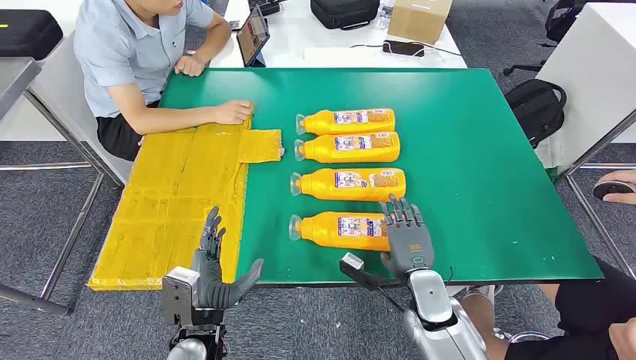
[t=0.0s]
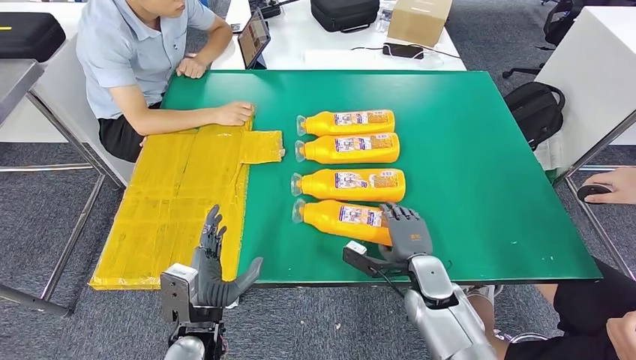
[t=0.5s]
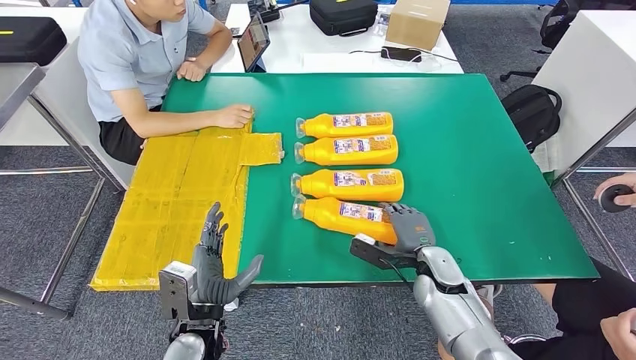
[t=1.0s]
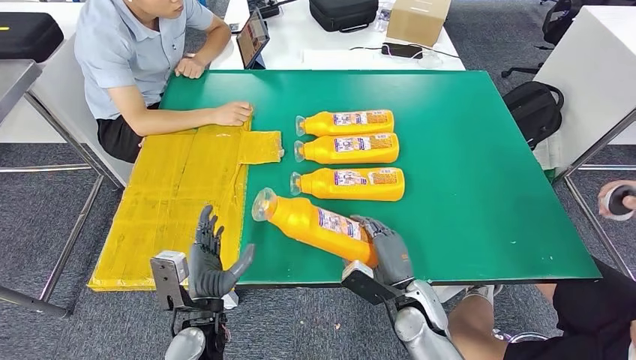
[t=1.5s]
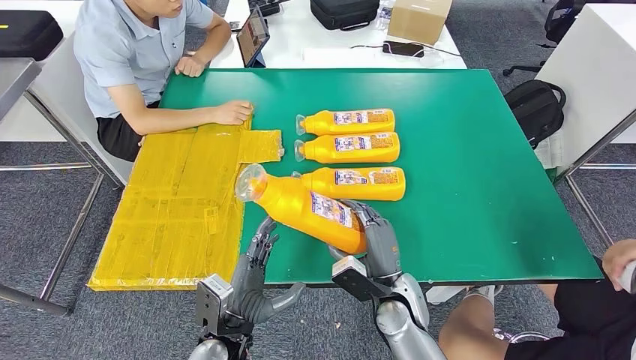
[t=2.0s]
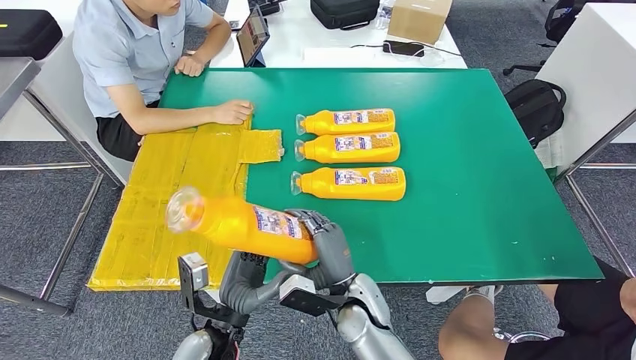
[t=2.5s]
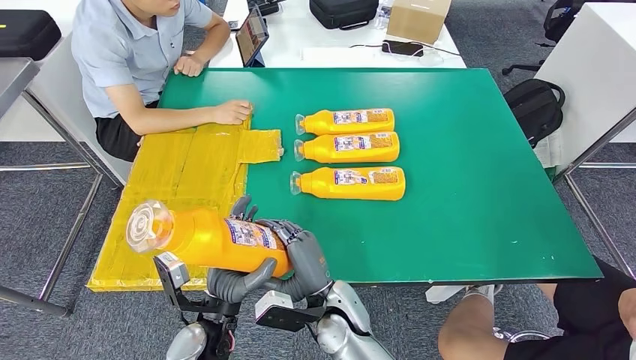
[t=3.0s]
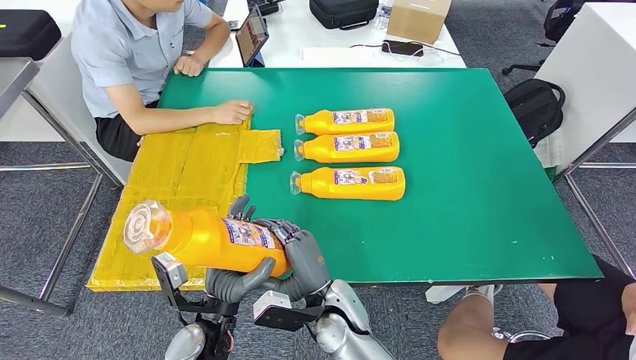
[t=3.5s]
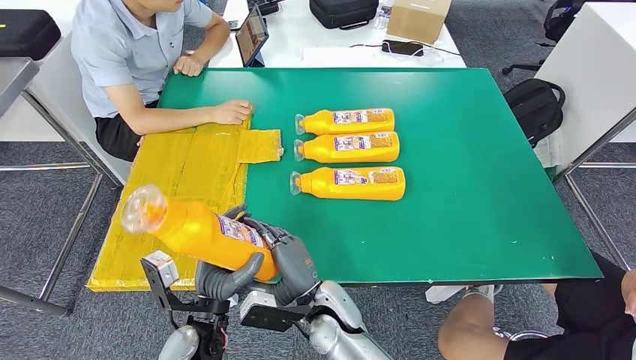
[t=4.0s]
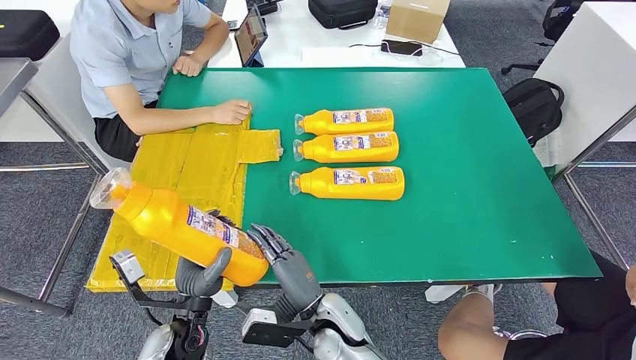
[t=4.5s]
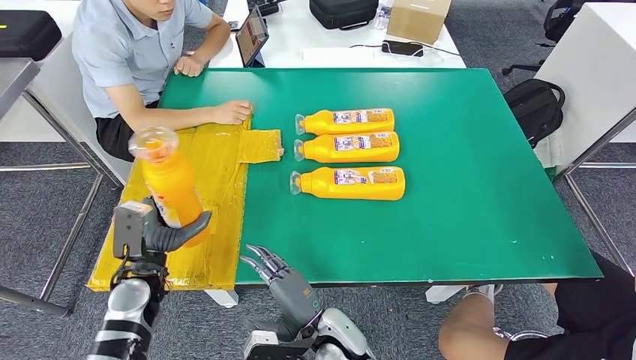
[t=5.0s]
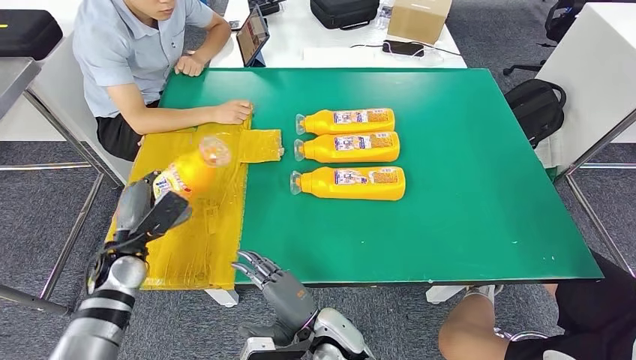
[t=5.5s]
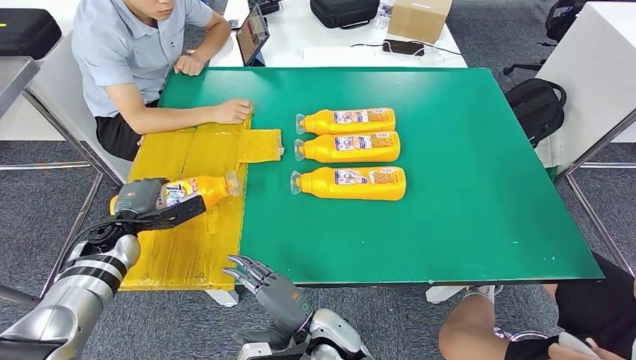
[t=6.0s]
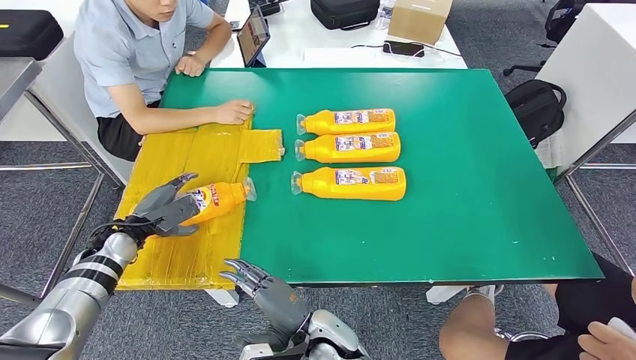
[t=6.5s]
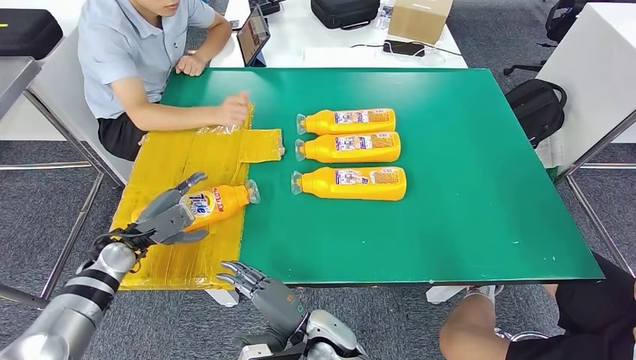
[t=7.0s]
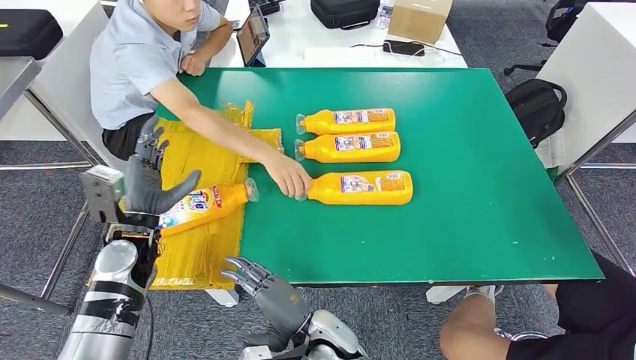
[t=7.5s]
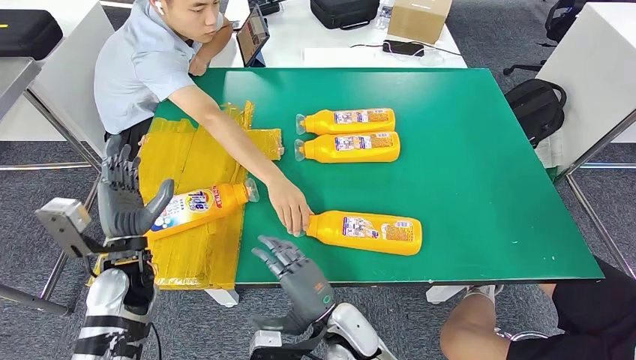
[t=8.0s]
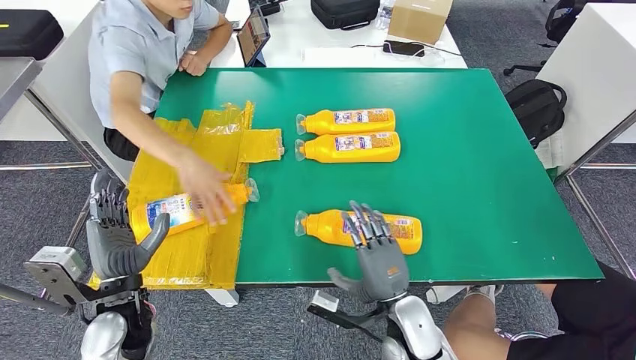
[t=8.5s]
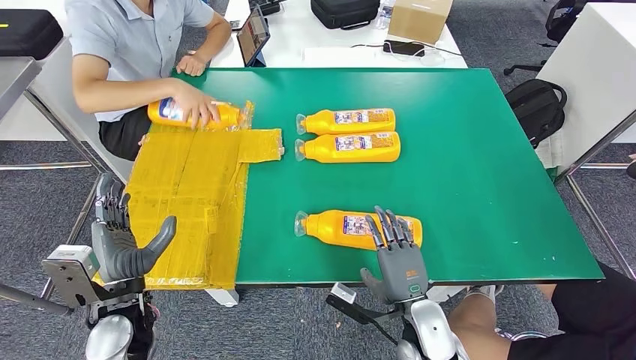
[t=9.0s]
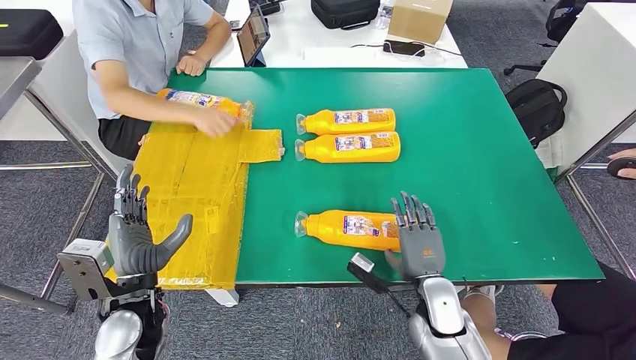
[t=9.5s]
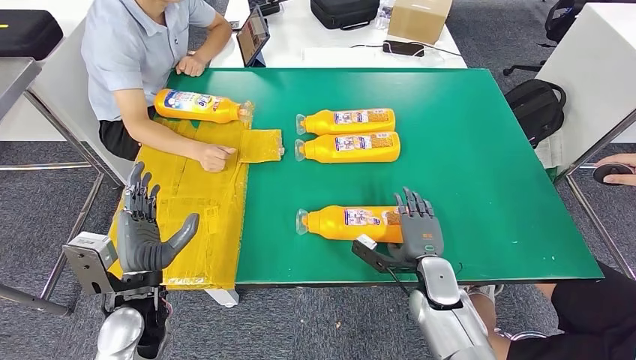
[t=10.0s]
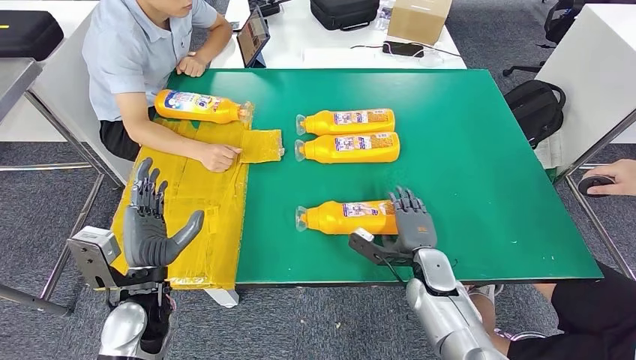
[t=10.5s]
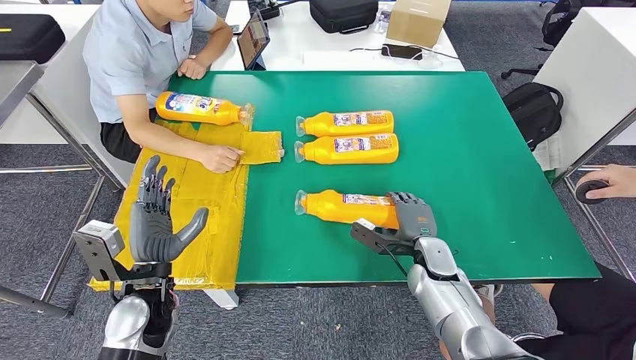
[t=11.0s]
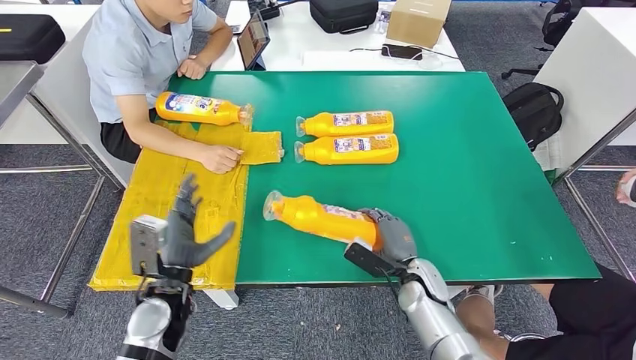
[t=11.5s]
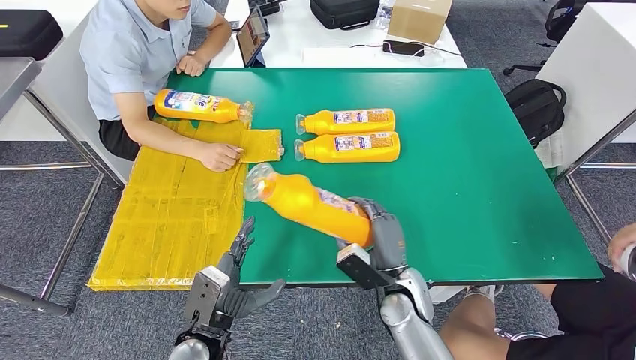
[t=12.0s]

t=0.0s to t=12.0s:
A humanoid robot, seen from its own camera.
Step, t=0.0s to t=1.5s: Take the bottle from the table.
Step, t=3.0s to t=7.0s: Flip the bottle to face forward.
t=2.0s to t=4.0s: The right hand is displaced to the left by roughly 15 cm.
t=4.0s to t=6.0s: The left hand moves to the left and forward, approximately 25 cm.
t=10.0s to t=12.0s: The left hand is displaced to the right and downward by roughly 10 cm; the right hand moves to the left, roughly 5 cm.

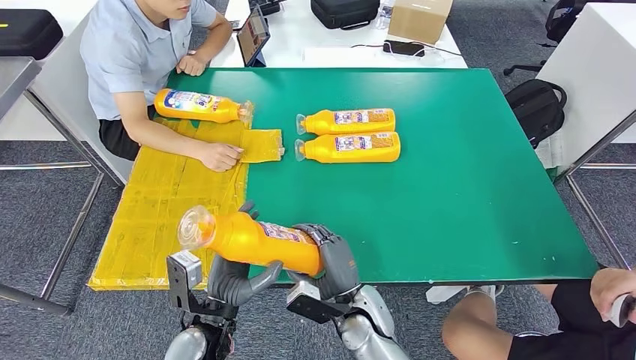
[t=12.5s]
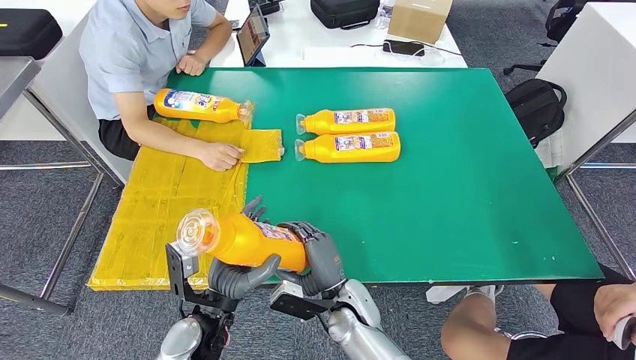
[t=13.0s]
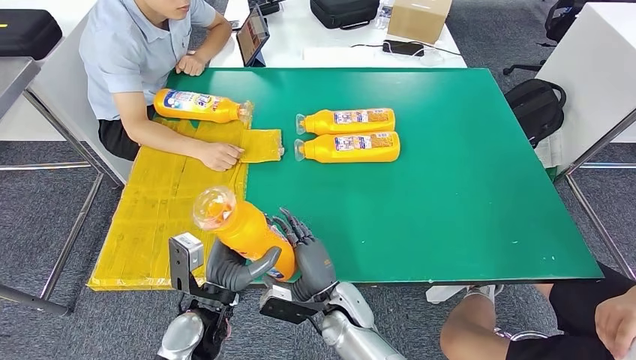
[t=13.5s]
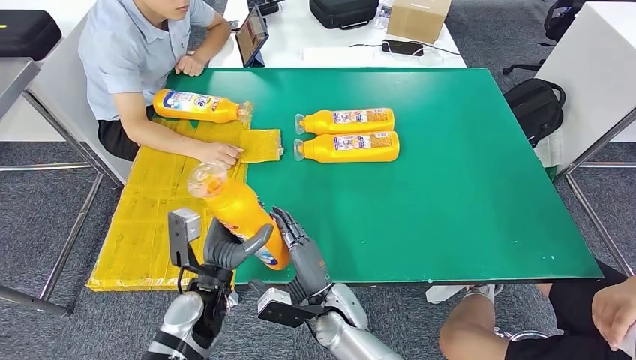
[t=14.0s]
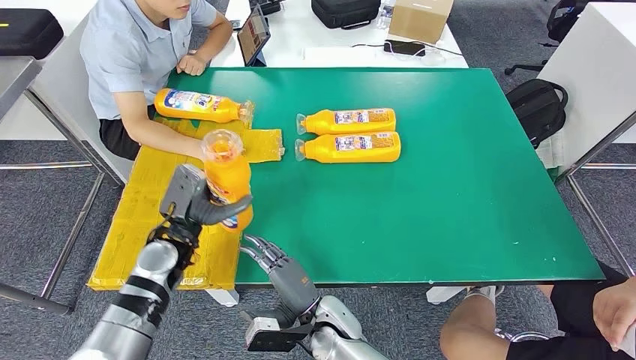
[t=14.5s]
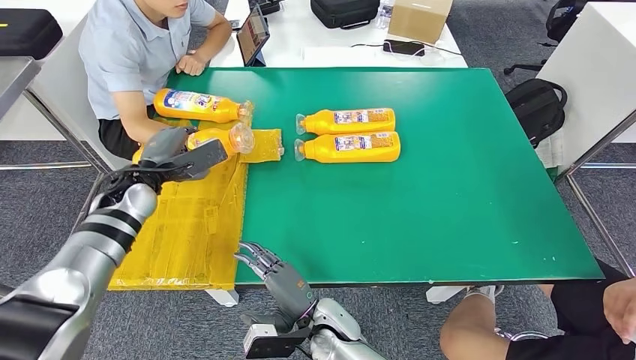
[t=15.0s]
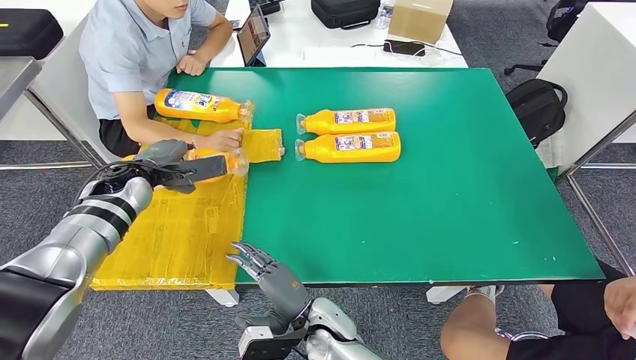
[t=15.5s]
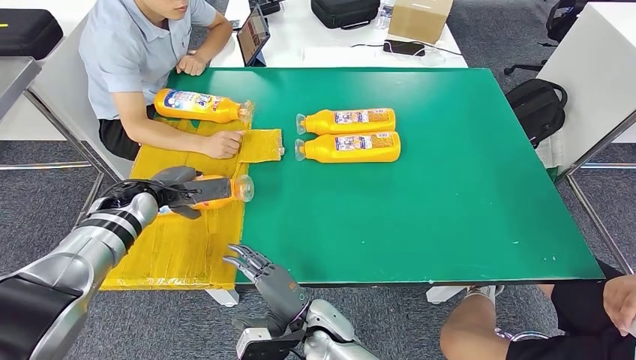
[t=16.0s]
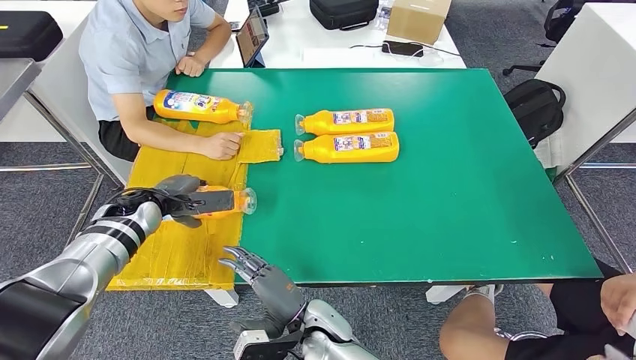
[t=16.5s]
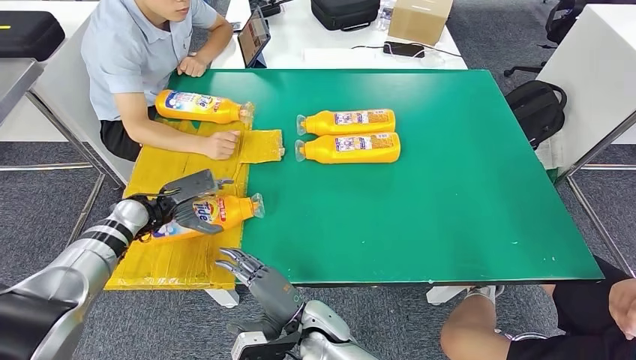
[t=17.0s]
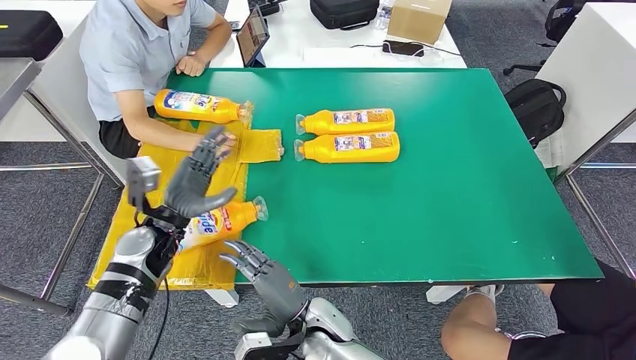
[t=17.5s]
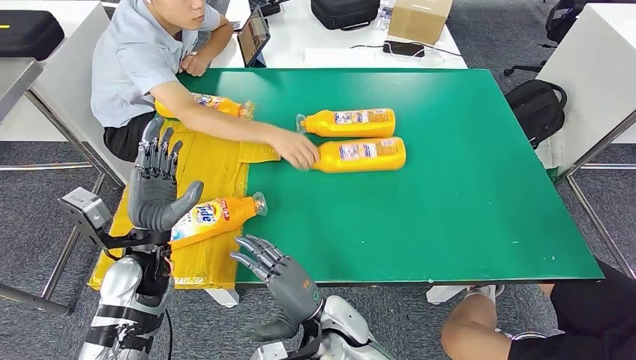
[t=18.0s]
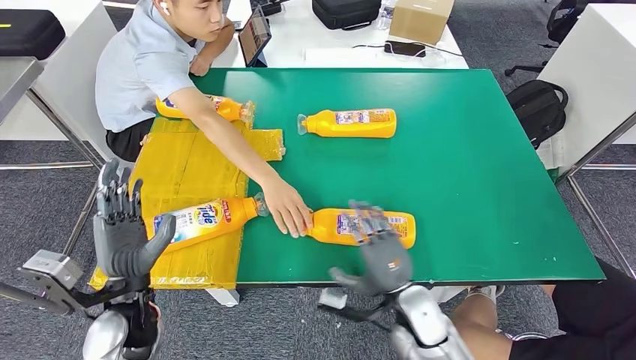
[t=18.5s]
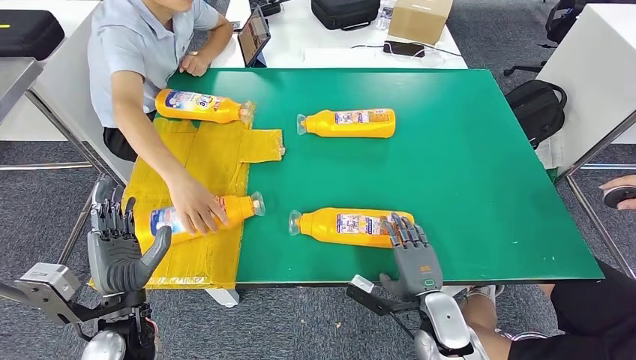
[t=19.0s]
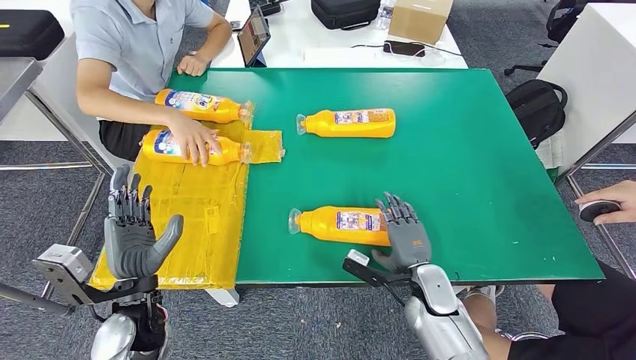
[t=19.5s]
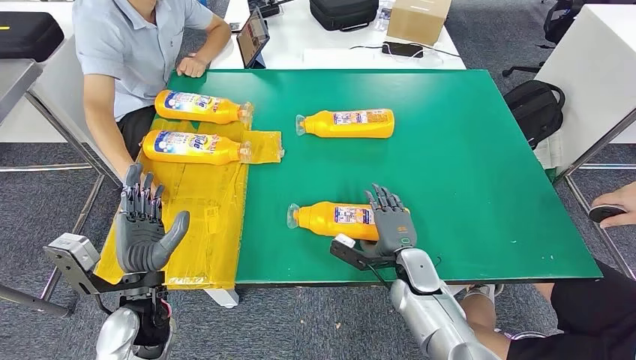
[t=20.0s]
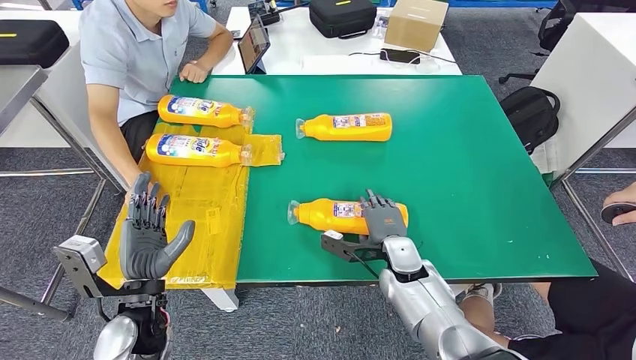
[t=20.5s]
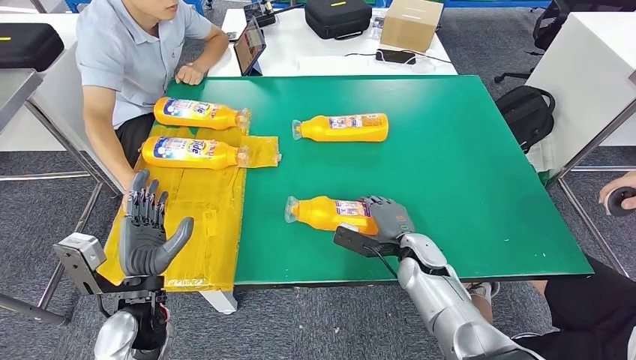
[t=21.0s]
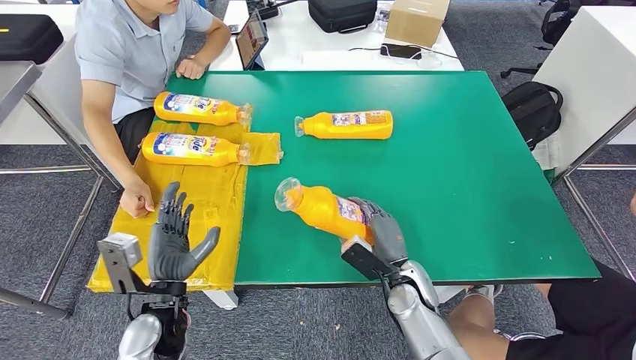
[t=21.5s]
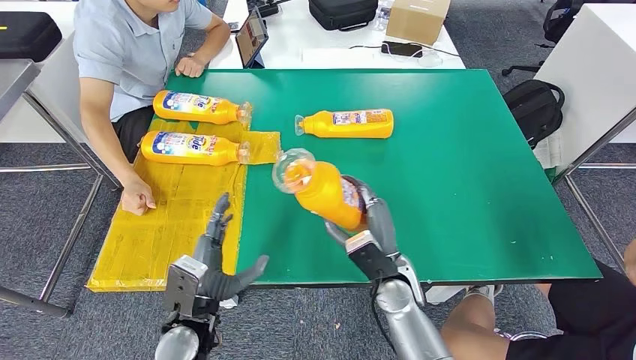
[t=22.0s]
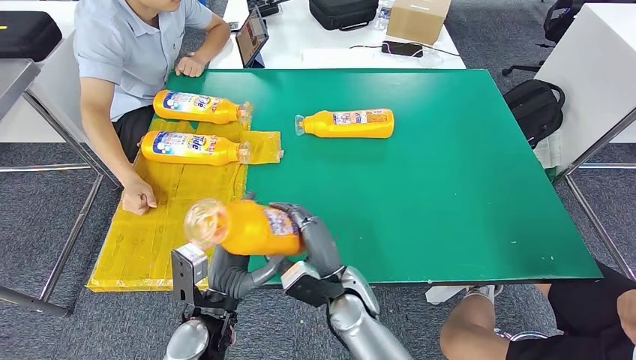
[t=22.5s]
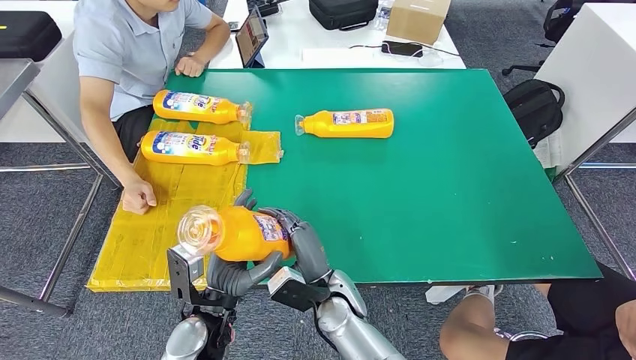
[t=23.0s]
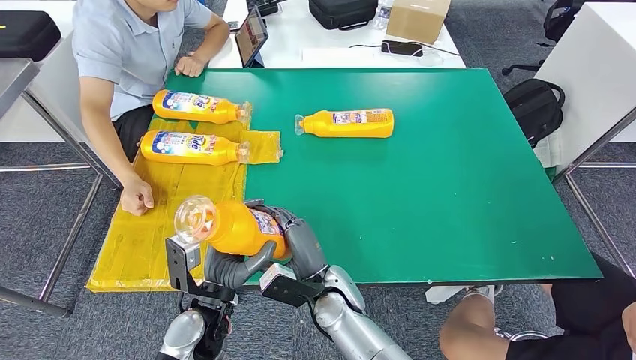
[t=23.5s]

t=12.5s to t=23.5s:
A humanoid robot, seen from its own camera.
Step, t=14.0s to t=17.5s: Flip the bottle to face forward.
Step, t=21.0s to t=22.5s: Pick up the bottle from the table.
t=12.5s to t=14.5s: The left hand heads forward and to the left, covering about 20 cm, while the right hand moves to the left, approximately 5 cm.
t=14.5s to t=16.0s: The left hand heads forward and to the left, covering approximately 10 cm.
